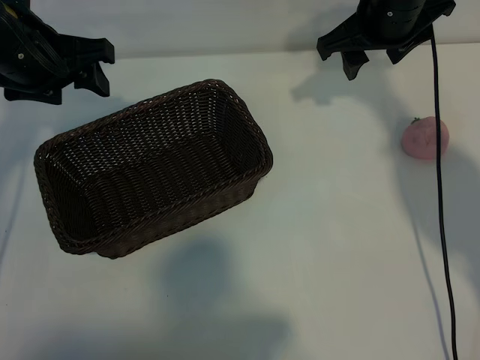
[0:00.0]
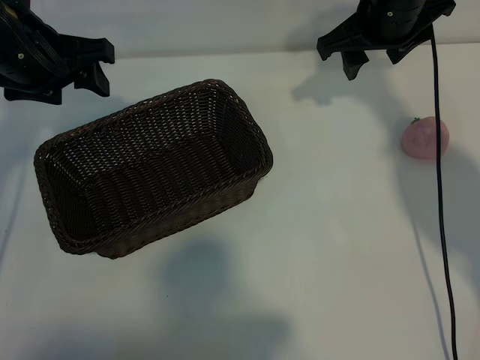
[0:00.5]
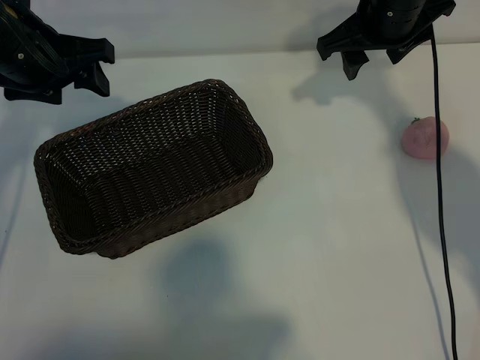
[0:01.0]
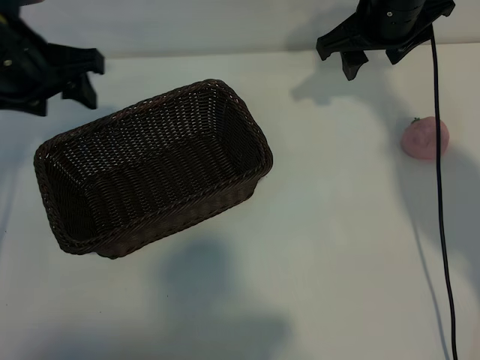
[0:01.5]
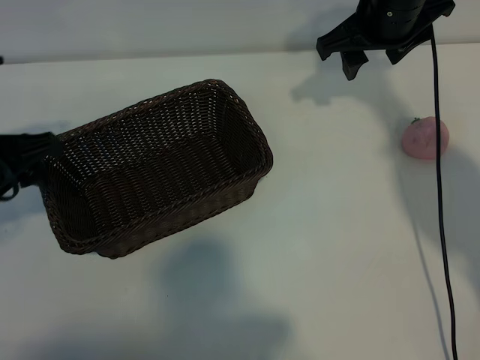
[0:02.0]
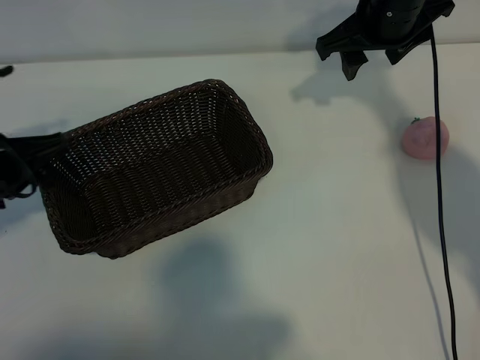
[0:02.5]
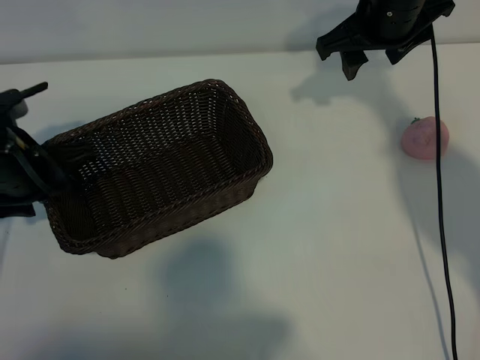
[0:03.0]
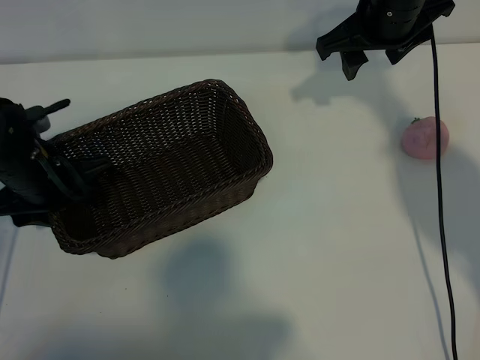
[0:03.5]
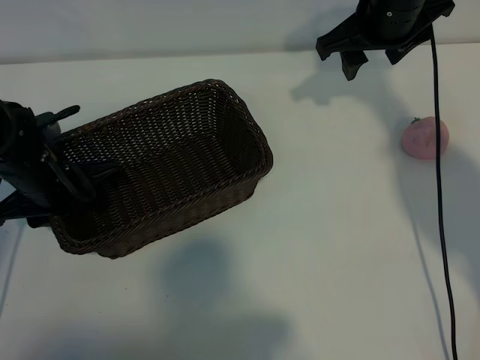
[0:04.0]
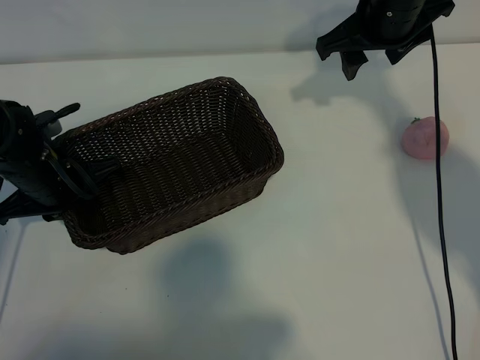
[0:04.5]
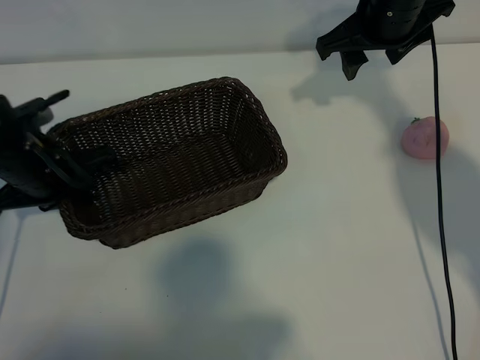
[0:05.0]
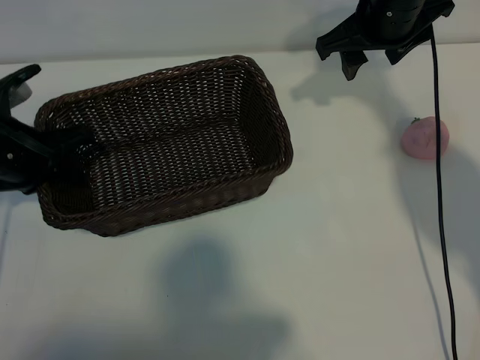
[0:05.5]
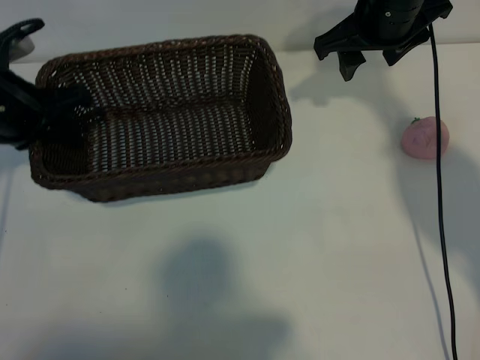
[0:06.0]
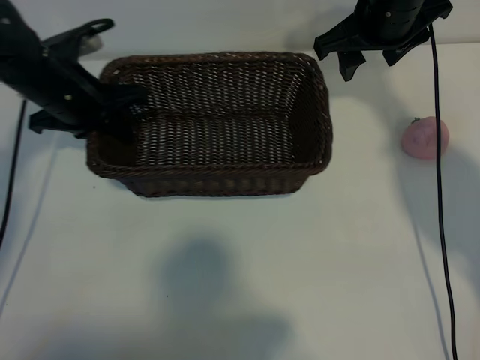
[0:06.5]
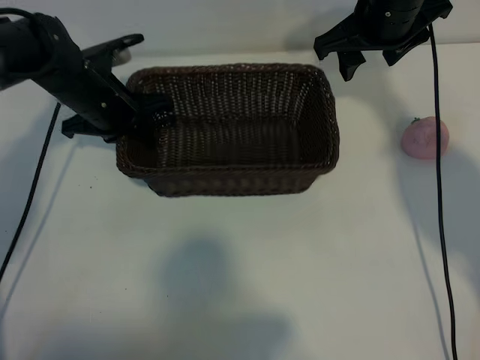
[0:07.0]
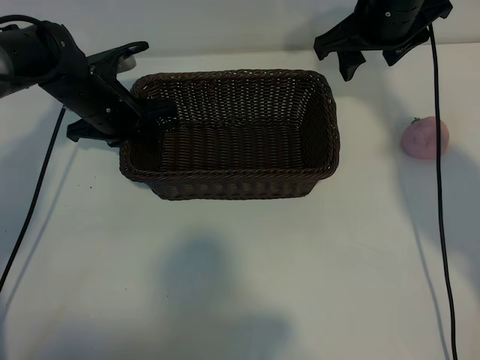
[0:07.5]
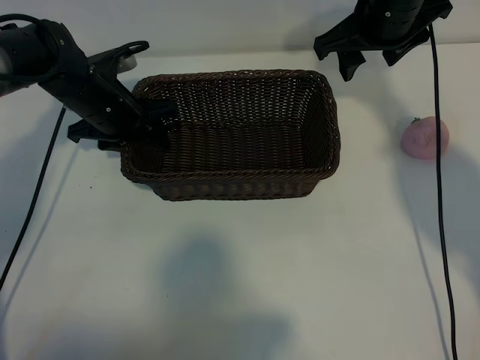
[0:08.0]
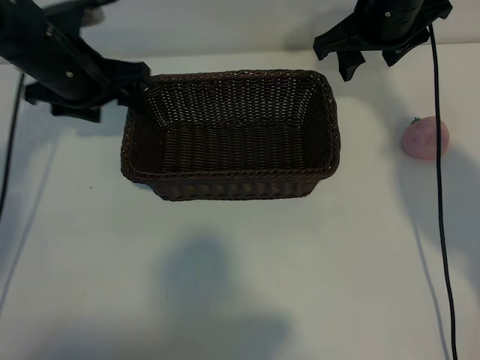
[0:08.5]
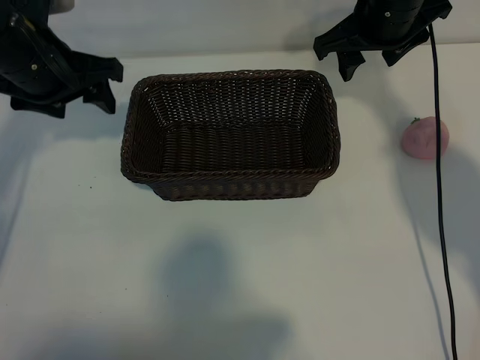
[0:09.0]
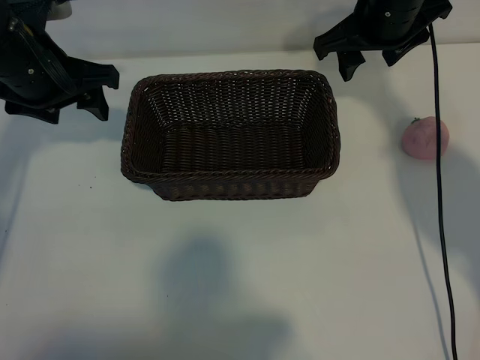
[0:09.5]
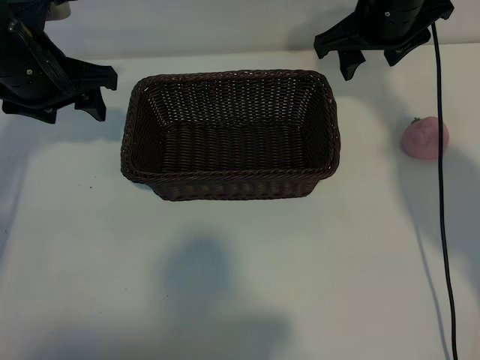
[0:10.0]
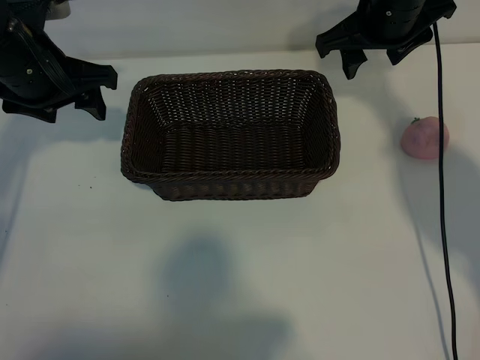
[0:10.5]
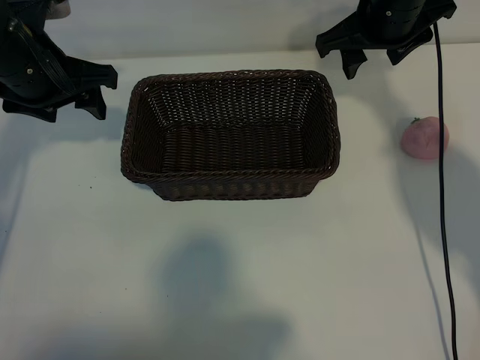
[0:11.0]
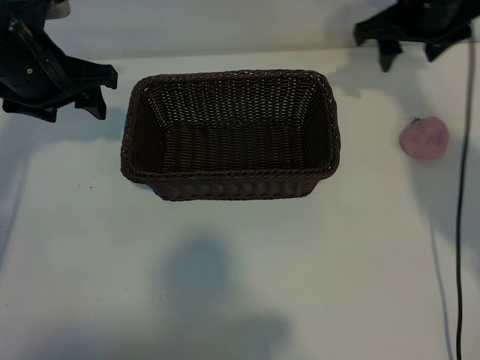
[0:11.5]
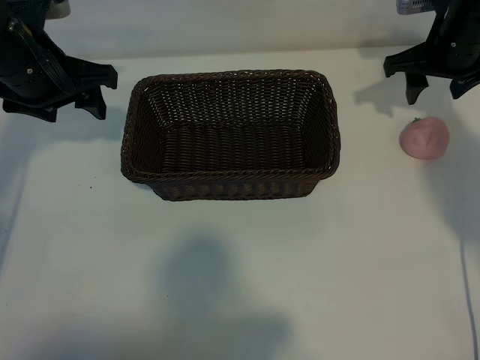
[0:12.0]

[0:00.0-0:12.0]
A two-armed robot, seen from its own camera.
Task of the whole recording: pick up the peach and put it into the basket.
Step, 0:01.5 to 0:04.5: Grasp the basket with left gripper.
Step, 0:05.0 to 0:08.0: Place the basket in the center of view with left gripper.

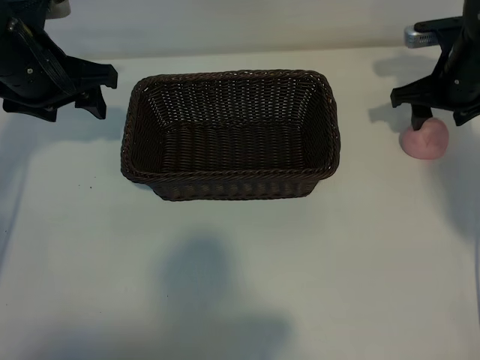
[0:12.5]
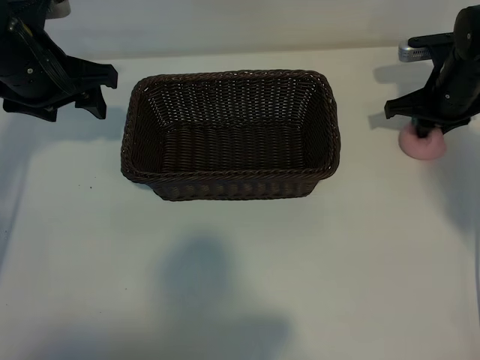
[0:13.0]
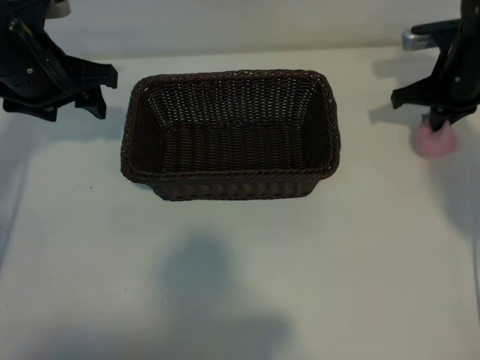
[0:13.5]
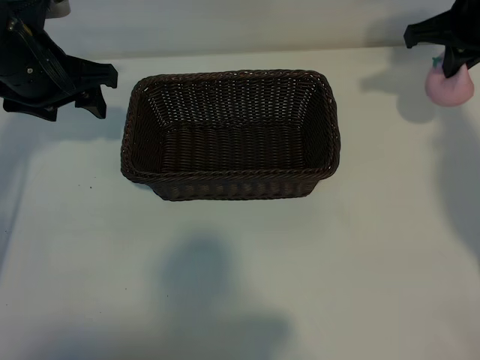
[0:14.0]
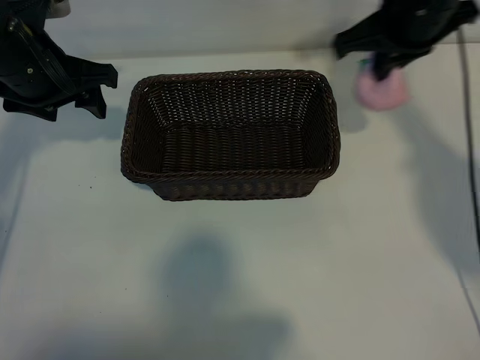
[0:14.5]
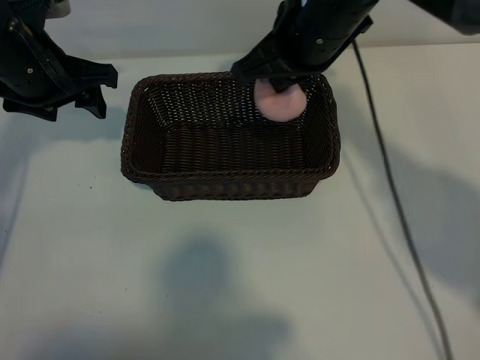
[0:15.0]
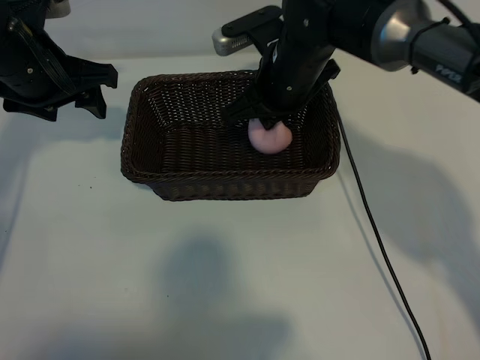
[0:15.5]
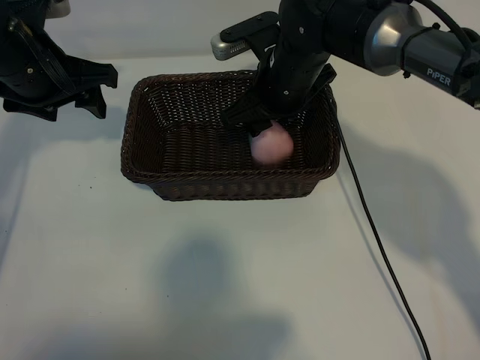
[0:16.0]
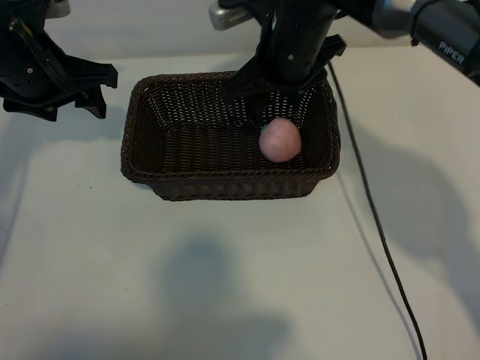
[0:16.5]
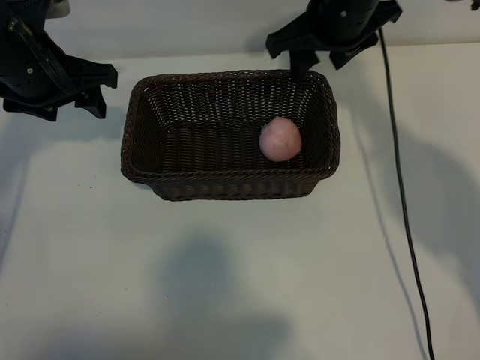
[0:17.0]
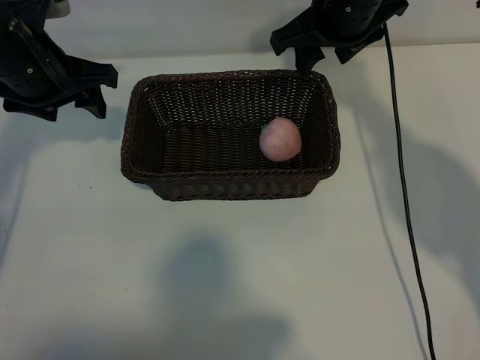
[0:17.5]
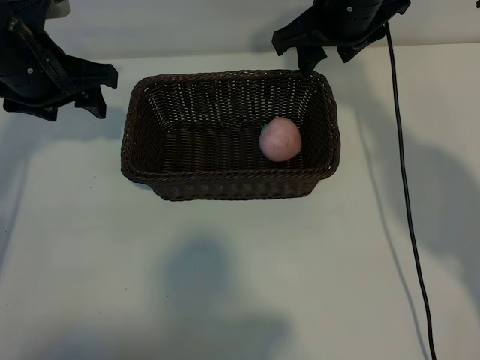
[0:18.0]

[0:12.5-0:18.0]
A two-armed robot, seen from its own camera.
Task of the whole recording: pick up the peach and put it into the basket.
Step, 0:14.0 to 0:16.0: Place the peach in the basket with right gripper.
